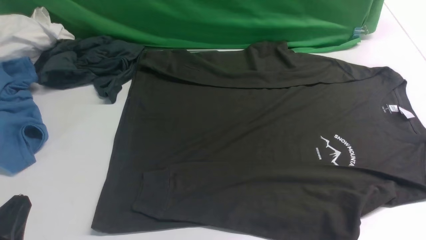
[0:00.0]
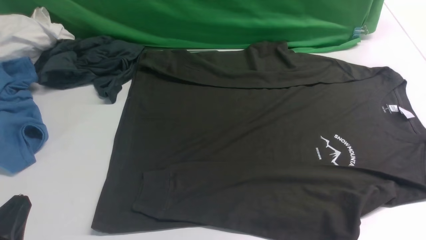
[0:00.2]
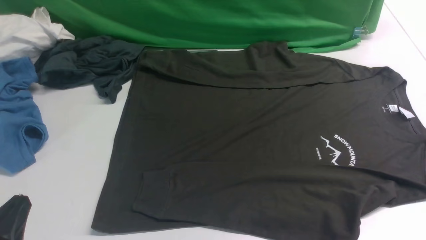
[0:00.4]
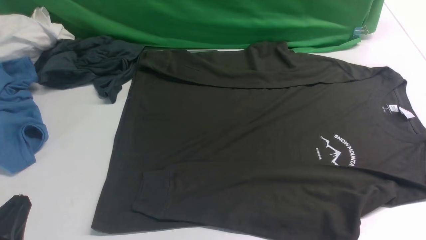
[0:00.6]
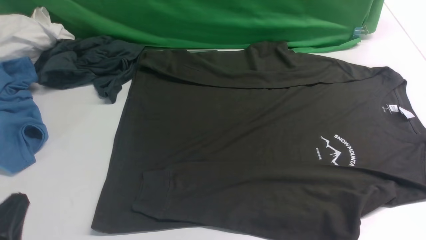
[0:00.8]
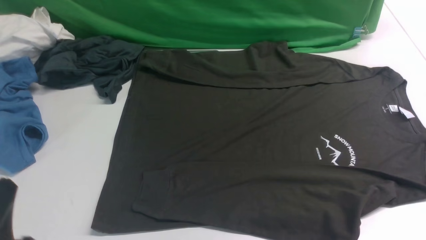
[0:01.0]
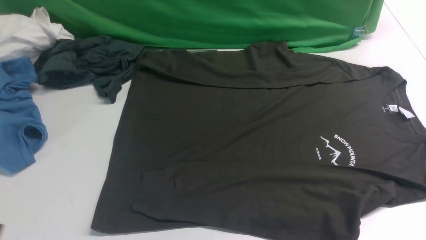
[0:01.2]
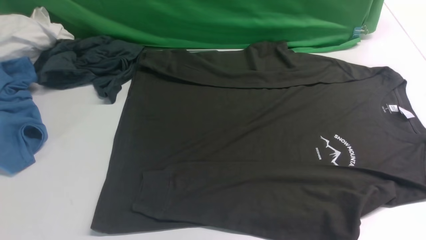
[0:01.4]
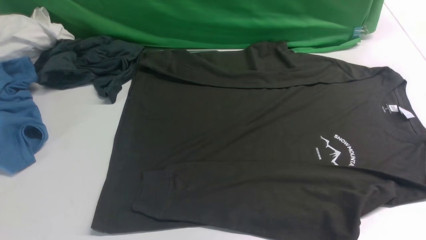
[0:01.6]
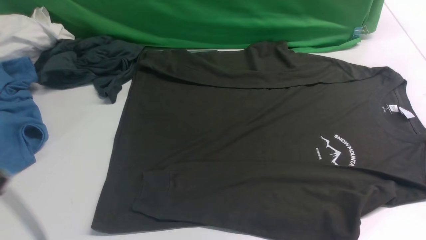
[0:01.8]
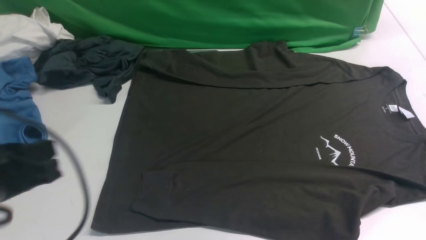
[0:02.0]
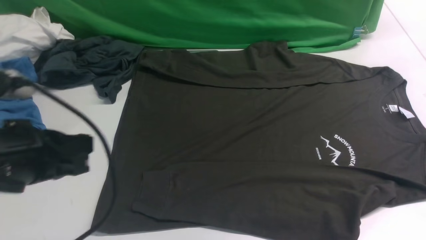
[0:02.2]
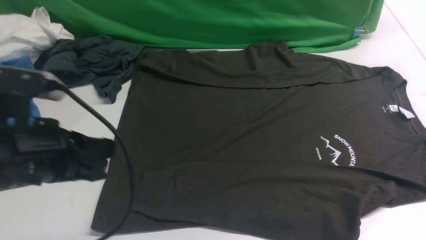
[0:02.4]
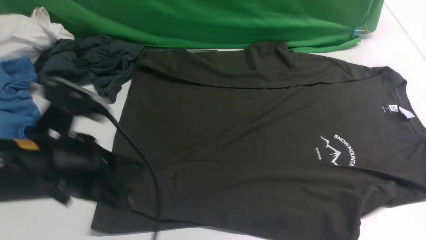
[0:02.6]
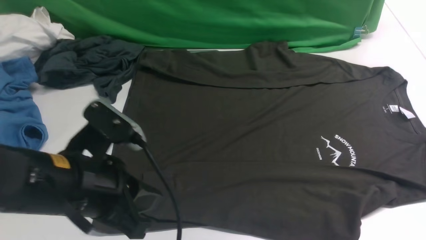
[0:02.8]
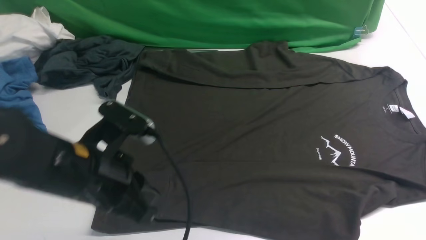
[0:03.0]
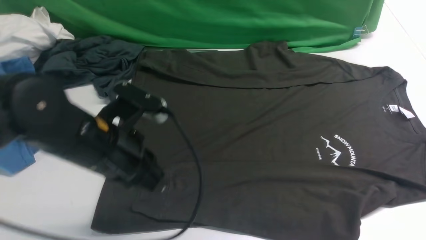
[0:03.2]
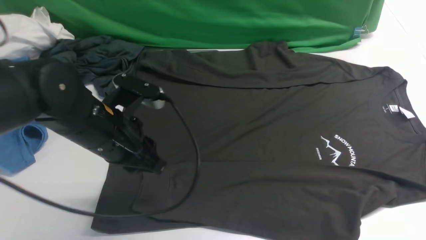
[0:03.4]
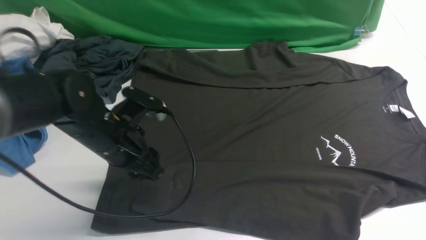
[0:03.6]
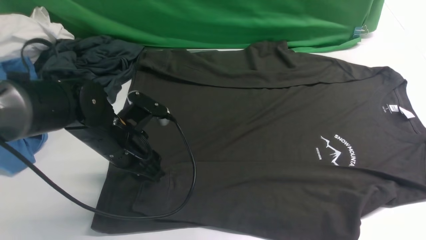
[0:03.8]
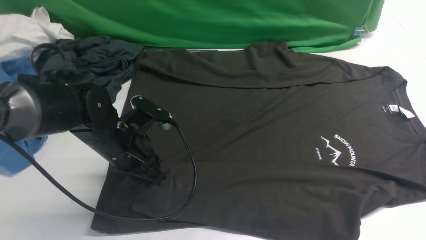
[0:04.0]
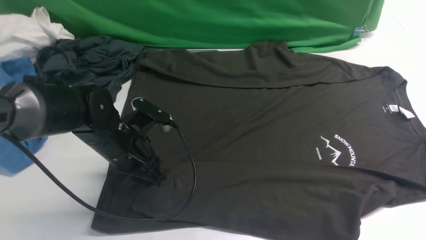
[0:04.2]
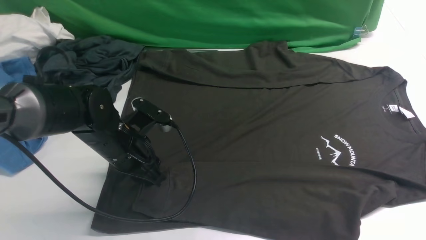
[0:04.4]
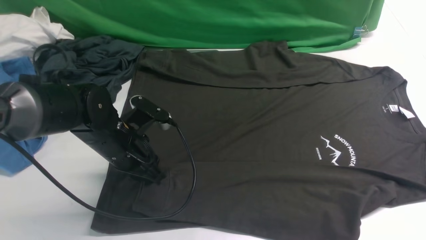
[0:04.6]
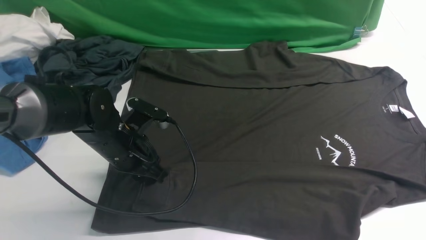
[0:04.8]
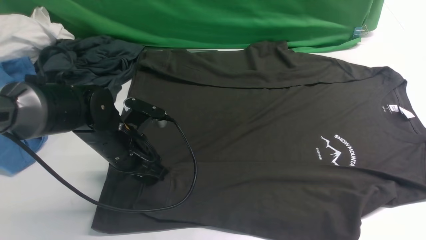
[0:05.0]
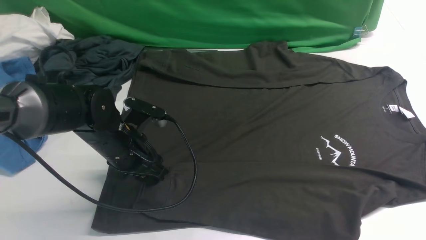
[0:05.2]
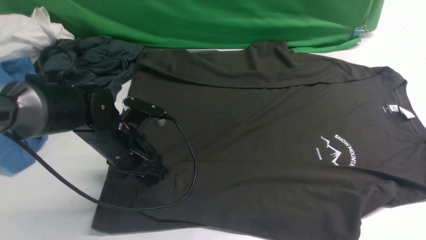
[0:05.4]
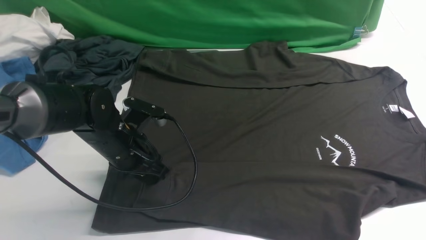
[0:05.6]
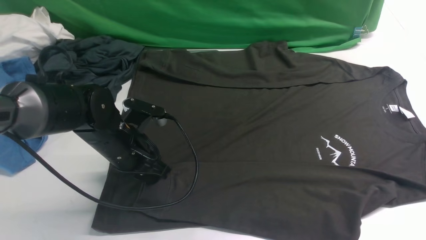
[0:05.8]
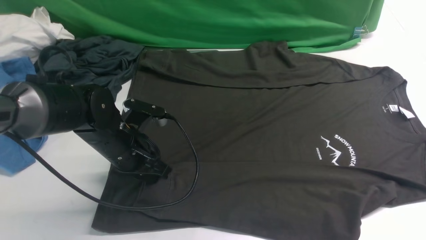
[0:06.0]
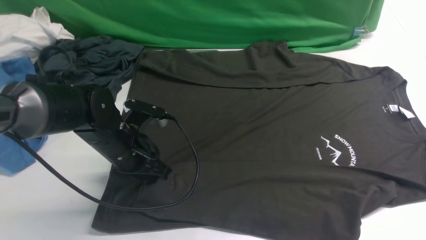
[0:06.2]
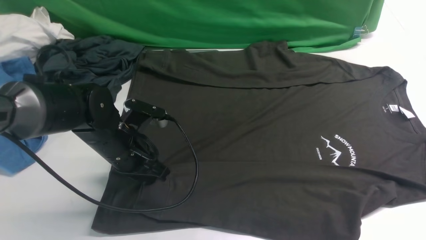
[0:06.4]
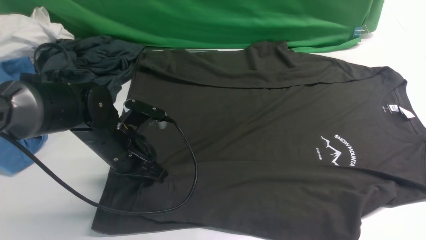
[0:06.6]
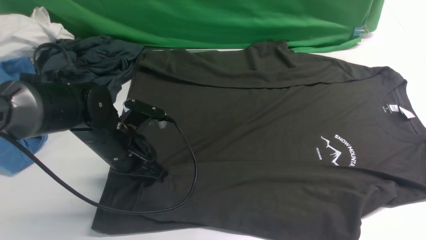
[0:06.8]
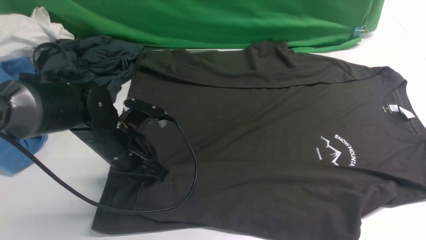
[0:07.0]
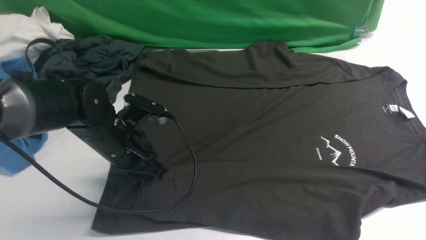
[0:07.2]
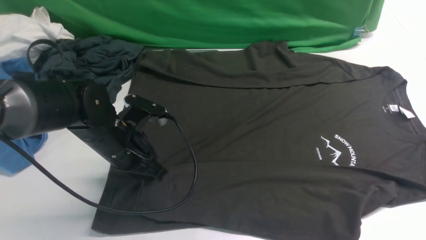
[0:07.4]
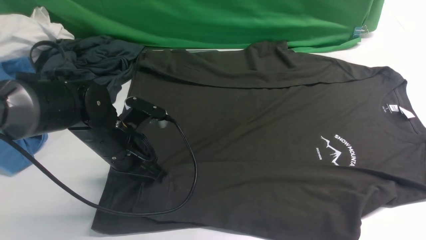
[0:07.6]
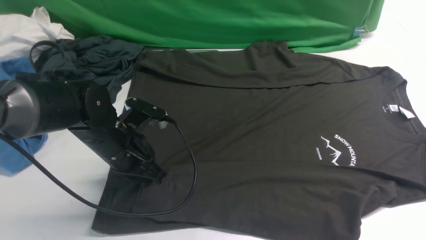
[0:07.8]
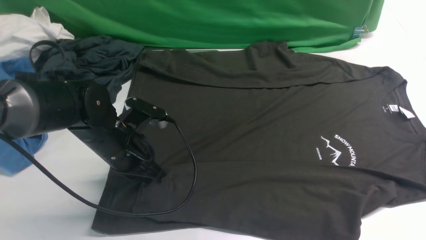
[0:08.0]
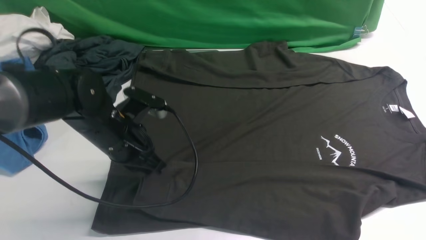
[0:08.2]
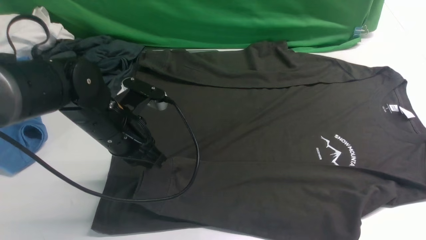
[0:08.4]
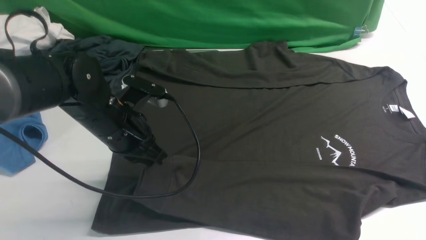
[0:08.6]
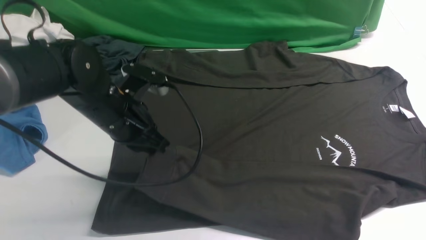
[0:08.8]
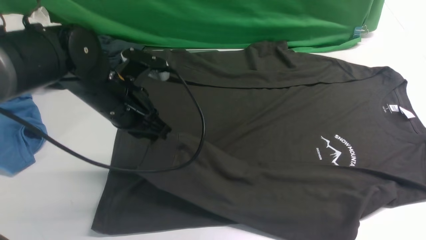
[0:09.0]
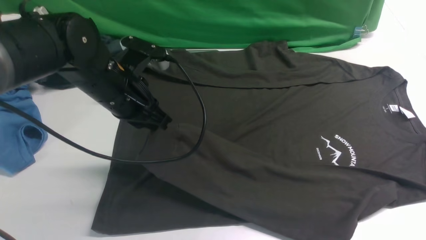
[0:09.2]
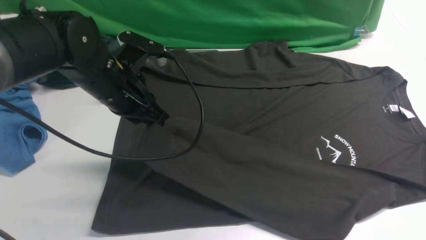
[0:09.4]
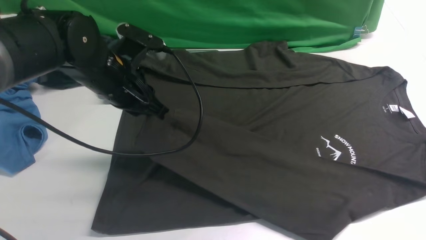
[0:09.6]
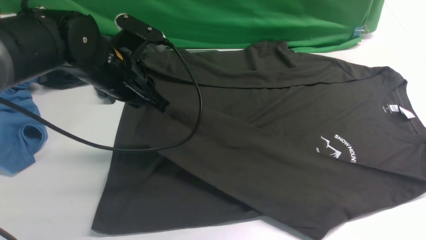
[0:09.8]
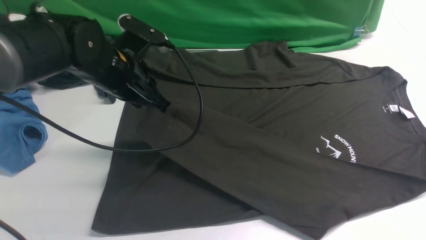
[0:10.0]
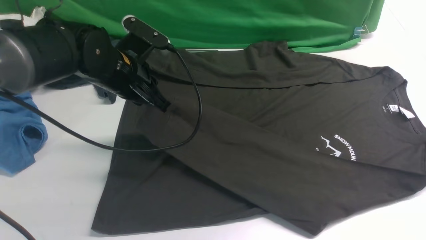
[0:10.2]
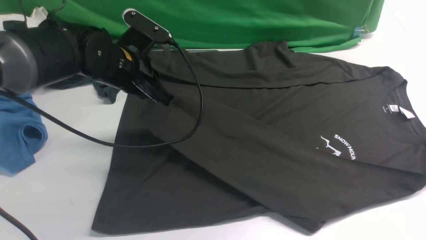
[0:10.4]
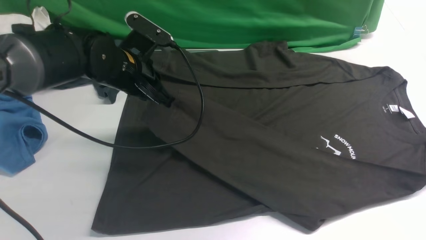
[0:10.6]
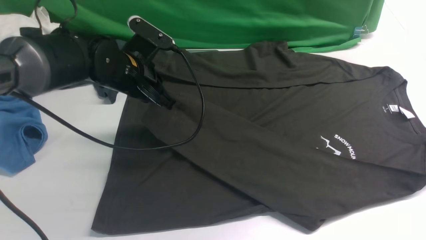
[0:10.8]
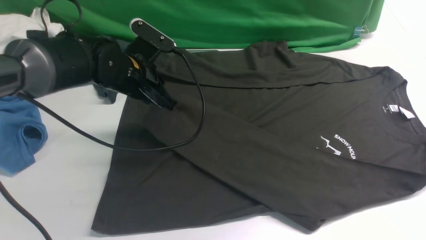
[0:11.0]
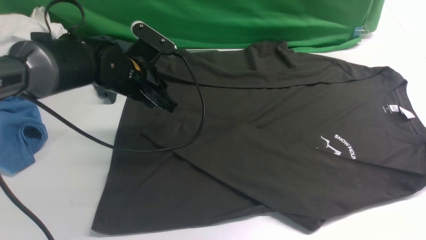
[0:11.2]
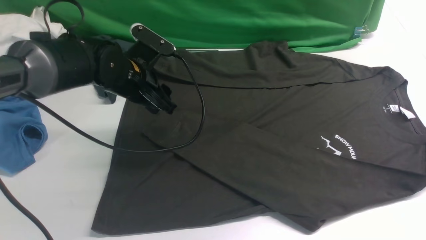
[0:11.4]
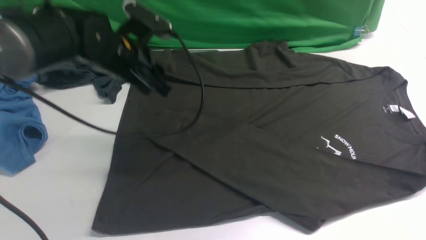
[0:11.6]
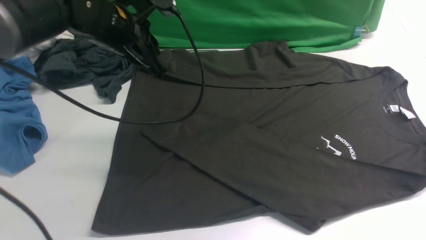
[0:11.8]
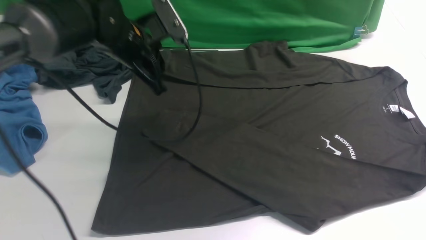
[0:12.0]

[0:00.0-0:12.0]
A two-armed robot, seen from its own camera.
Step, 0:00.0 to 0:08.2: use the left arm to clamp the cuff closest to it.
Step, 0:08.4 to 0:11.2: use the left arm to drag and place the cuff at the centered position on the left edge of the fabric.
0:00.0 to 0:01.6: The left gripper travels upward by approximately 10 cm.
0:01.6 to 0:03.0: The left gripper goes roughly 15 cm forward and to the right. Meanwhile the right gripper moves upward, roughly 10 cm.
0:03.0 to 0:04.4: The right gripper heads upward, covering roughly 10 cm; the left gripper moves forward and downward, roughly 15 cm, and opens.
0:04.4 to 0:06.0: The left gripper opens, then closes again.
0:06.0 to 0:07.6: The grippers make only small movements.
0:07.6 to 0:09.0: The left gripper goes about 5 cm upward.
0:10.4 to 0:12.0: The right gripper changes place by approximately 5 cm, while the left gripper opens, then closes again.

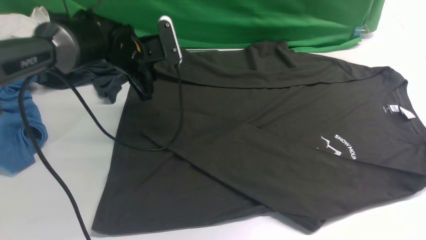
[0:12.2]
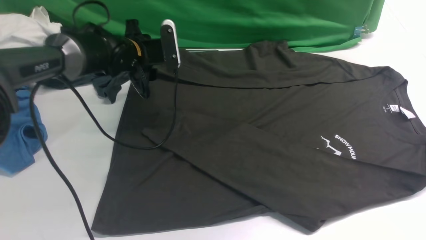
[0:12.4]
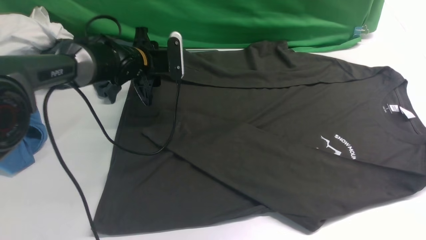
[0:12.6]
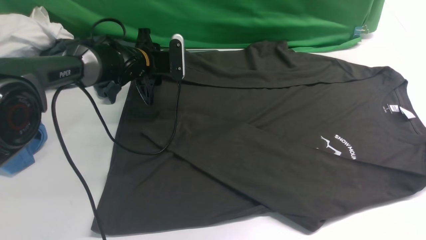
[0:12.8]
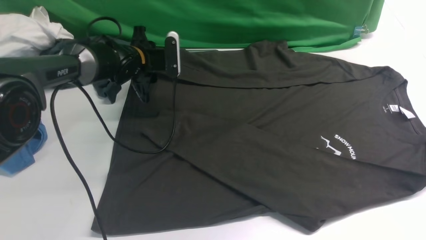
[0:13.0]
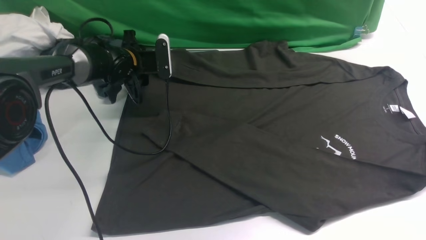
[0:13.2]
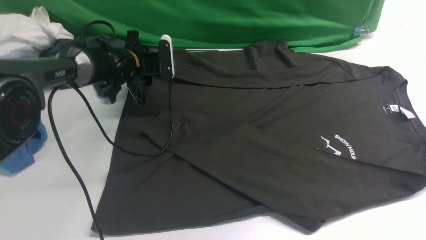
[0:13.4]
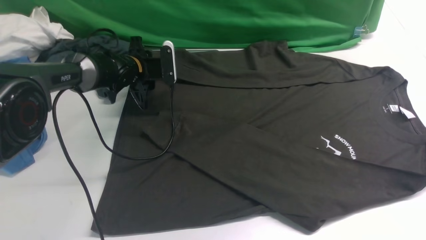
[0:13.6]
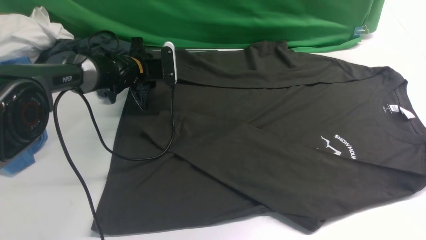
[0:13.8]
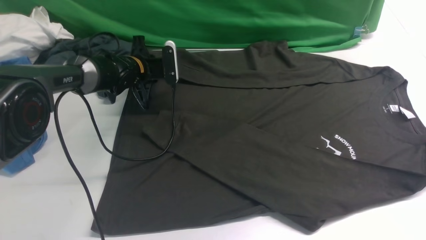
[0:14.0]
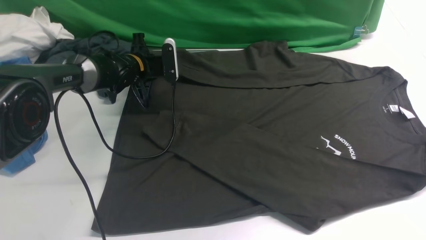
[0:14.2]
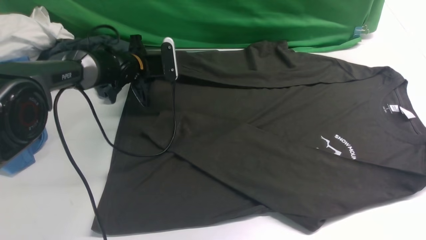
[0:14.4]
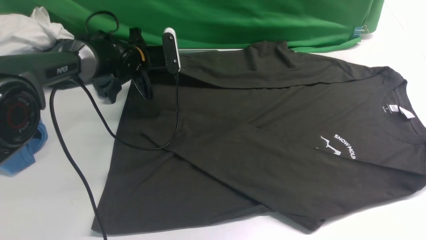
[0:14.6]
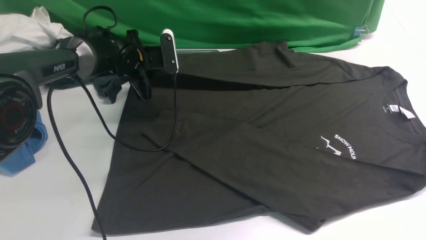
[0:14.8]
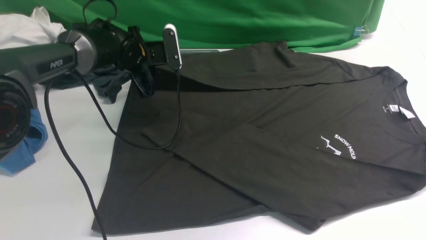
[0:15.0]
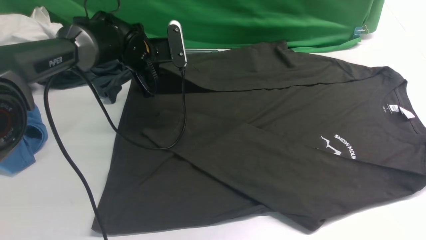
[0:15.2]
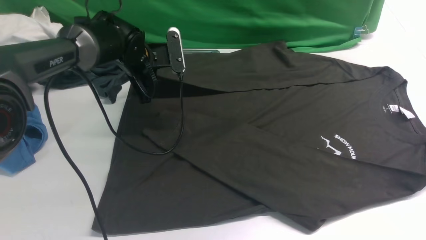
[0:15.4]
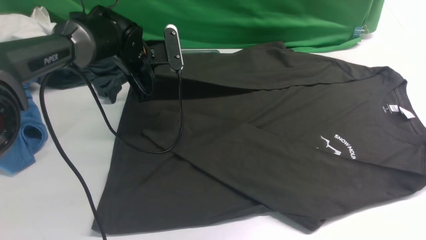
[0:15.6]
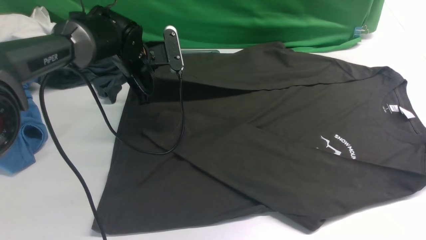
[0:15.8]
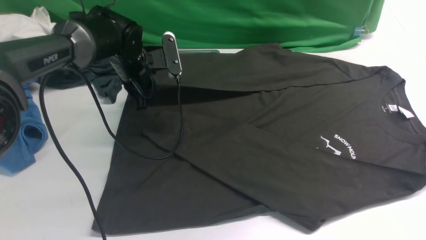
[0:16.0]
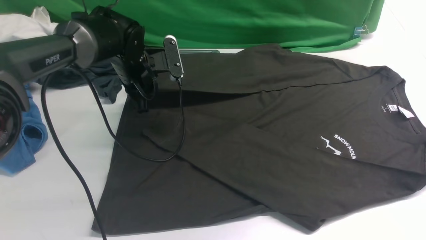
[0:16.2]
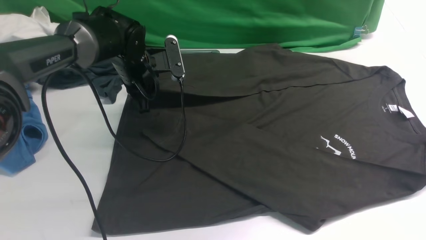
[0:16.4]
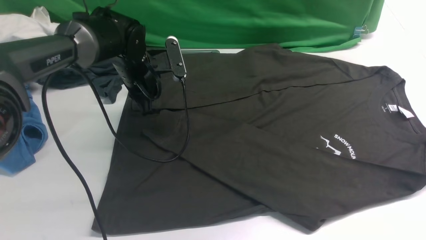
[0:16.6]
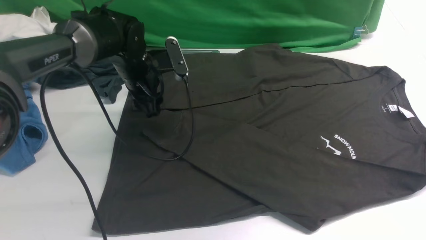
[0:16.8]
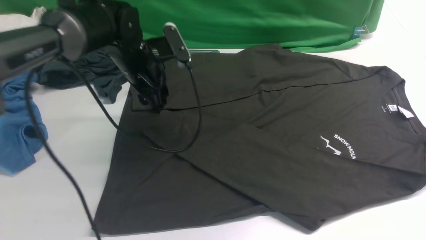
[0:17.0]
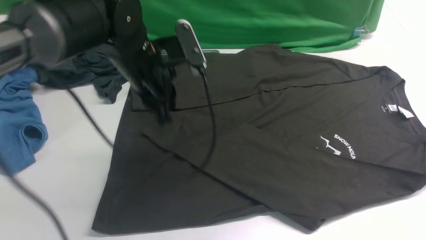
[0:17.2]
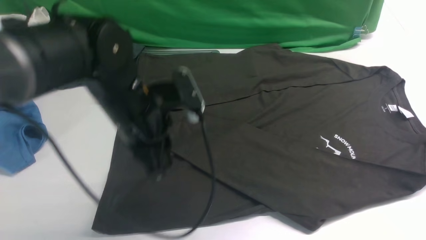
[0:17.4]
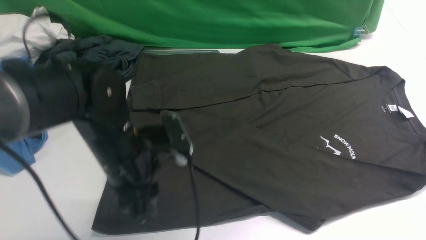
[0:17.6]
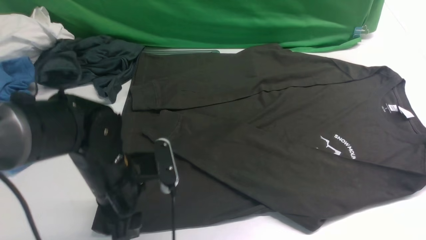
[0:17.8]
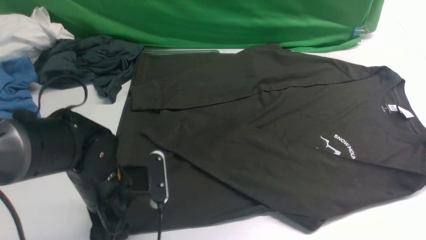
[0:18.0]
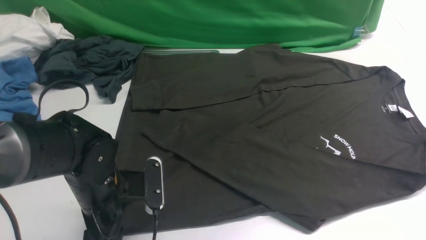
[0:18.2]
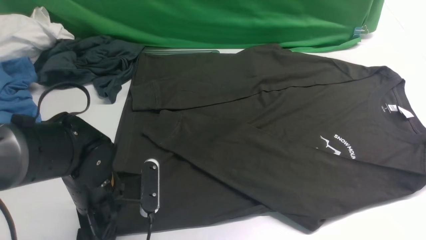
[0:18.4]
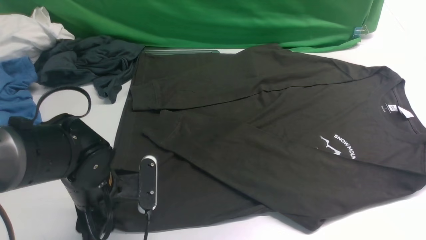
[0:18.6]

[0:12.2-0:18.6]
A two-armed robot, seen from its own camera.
Step, 0:12.2 to 0:14.6: use the left arm to clamp the cuff farthest from it.
Step, 0:14.8 to 0:16.8: use the left arm to drag and drop the cuff onto the cuff closest to the left arm.
0:12.2 to 0:13.8: The left gripper moves downward and forward, some 10 cm, and opens, then closes once more.
0:13.8 to 0:15.4: The left gripper heads upward, covering roughly 5 cm, and closes.
0:15.4 to 0:17.0: The left gripper travels backward by about 5 cm, and opens.
0:17.0 to 0:18.6: The left gripper is displaced backward and downward by some 20 cm, and closes, then reopens.
